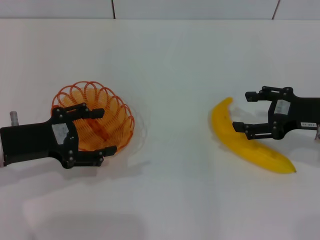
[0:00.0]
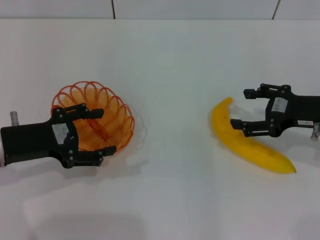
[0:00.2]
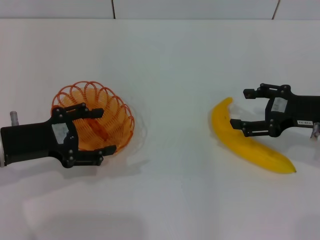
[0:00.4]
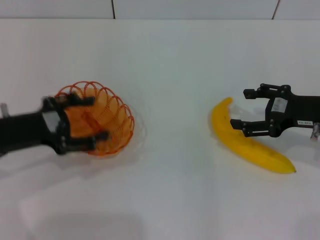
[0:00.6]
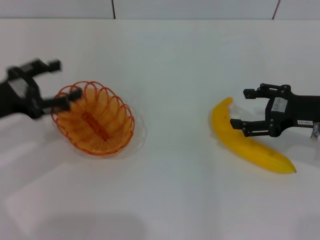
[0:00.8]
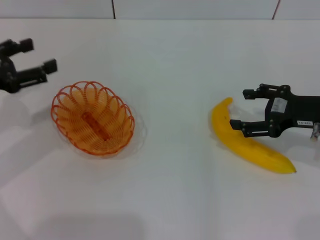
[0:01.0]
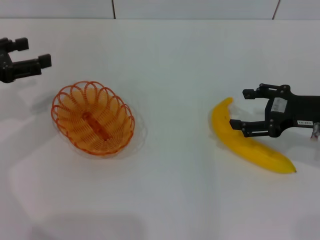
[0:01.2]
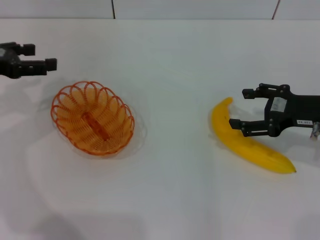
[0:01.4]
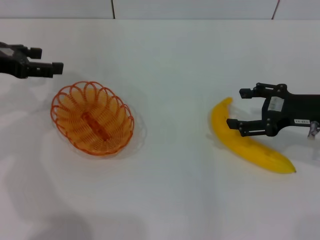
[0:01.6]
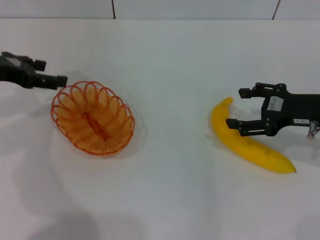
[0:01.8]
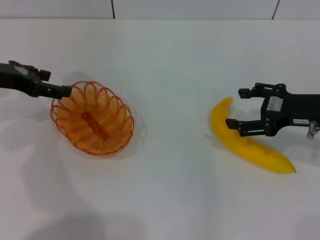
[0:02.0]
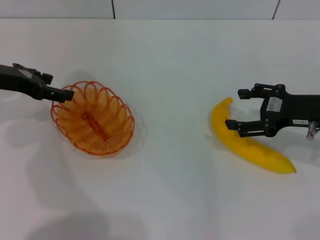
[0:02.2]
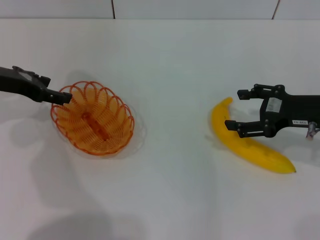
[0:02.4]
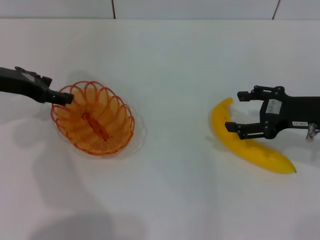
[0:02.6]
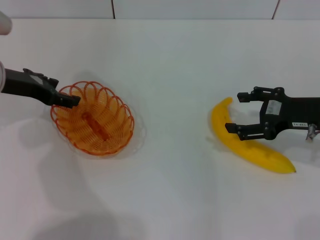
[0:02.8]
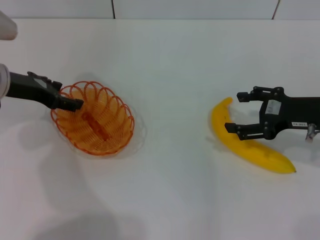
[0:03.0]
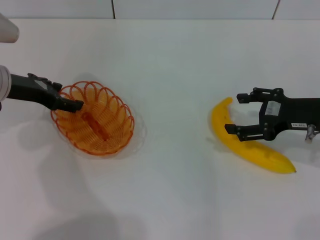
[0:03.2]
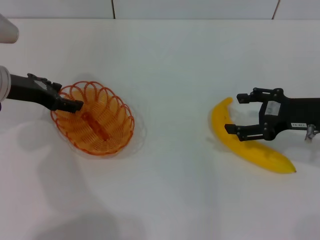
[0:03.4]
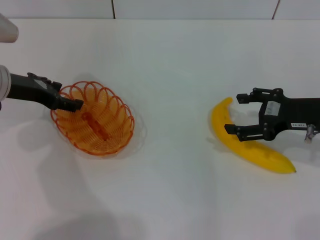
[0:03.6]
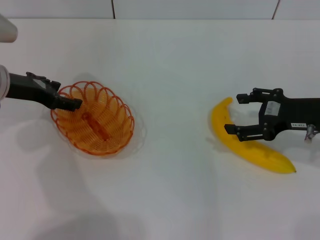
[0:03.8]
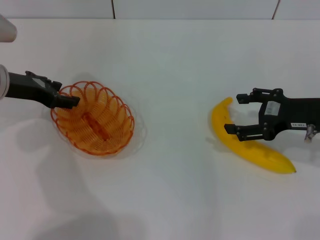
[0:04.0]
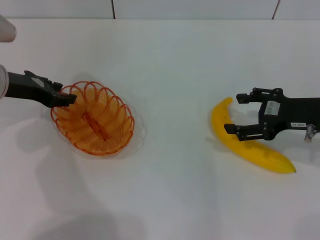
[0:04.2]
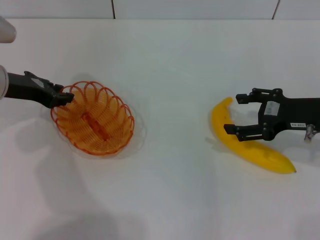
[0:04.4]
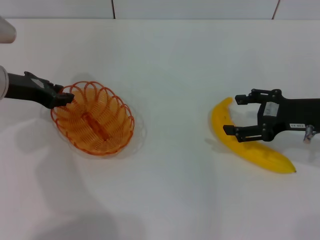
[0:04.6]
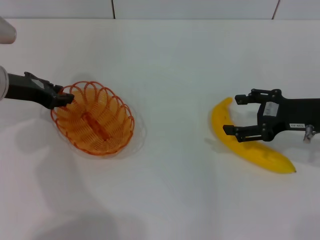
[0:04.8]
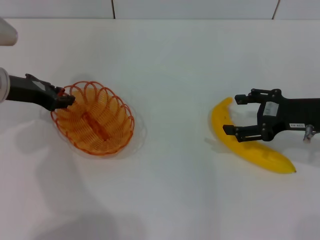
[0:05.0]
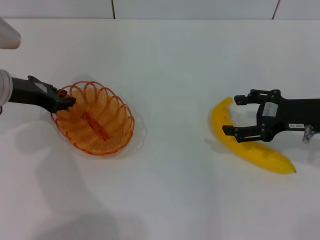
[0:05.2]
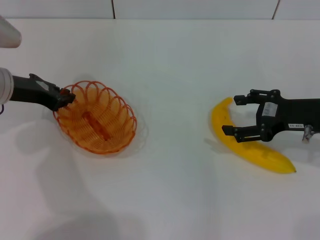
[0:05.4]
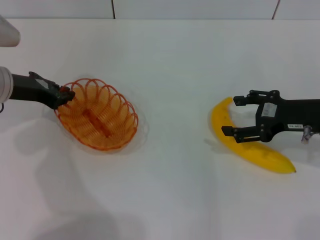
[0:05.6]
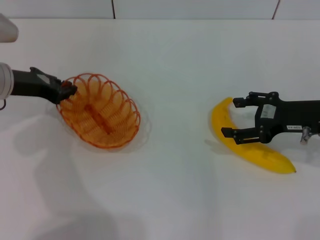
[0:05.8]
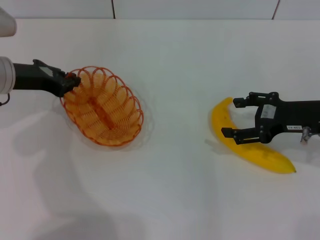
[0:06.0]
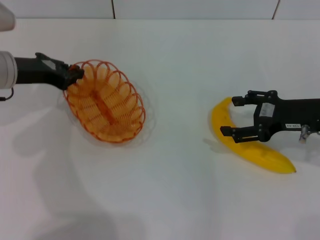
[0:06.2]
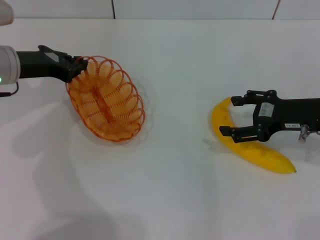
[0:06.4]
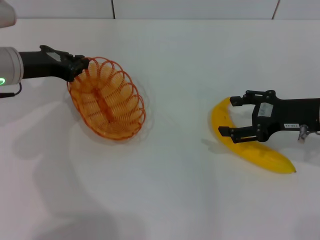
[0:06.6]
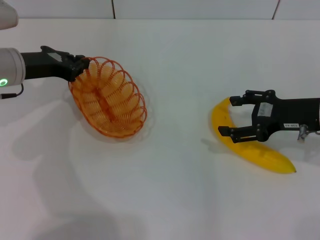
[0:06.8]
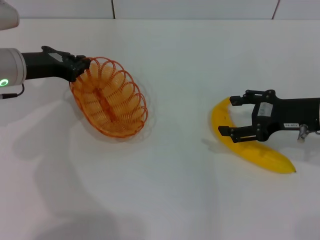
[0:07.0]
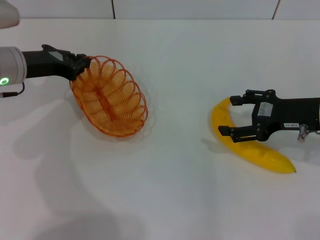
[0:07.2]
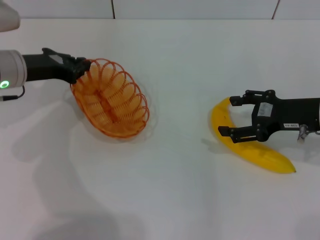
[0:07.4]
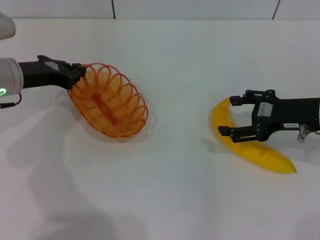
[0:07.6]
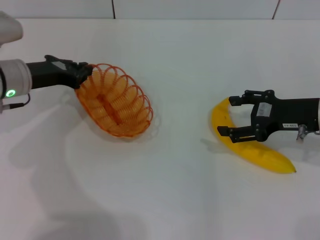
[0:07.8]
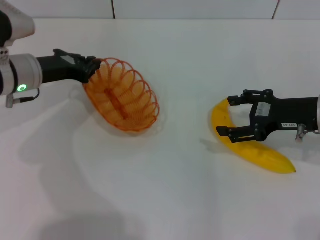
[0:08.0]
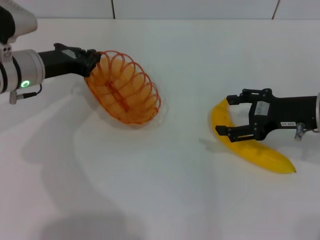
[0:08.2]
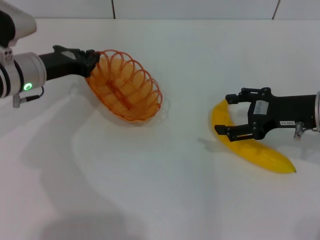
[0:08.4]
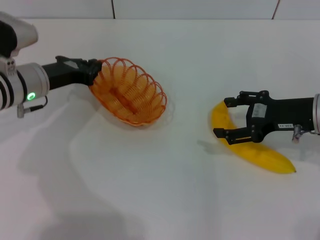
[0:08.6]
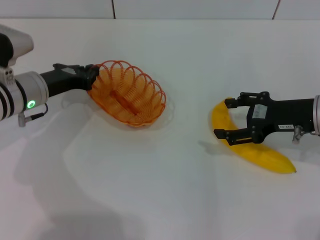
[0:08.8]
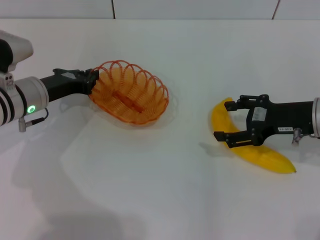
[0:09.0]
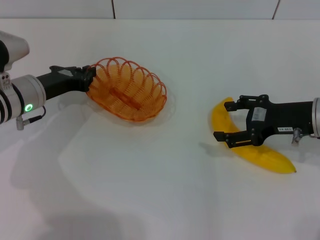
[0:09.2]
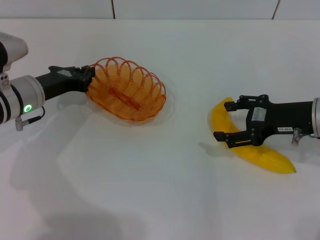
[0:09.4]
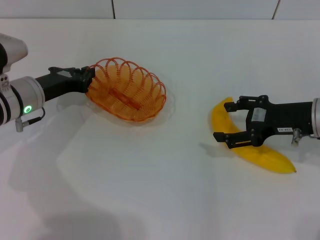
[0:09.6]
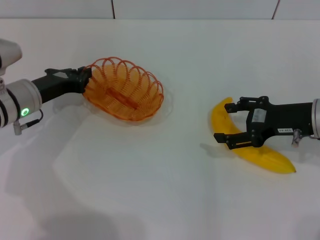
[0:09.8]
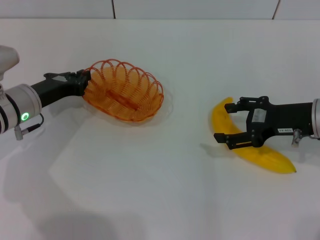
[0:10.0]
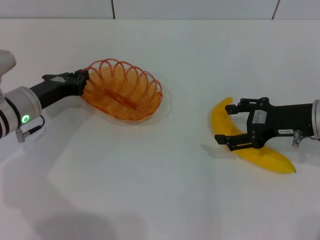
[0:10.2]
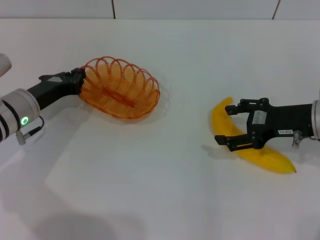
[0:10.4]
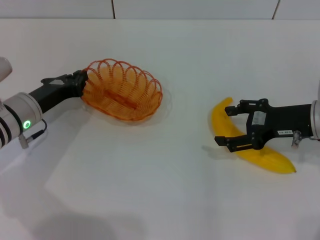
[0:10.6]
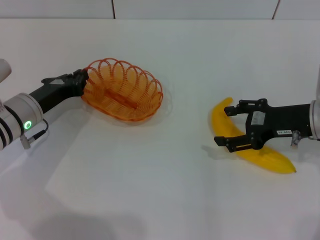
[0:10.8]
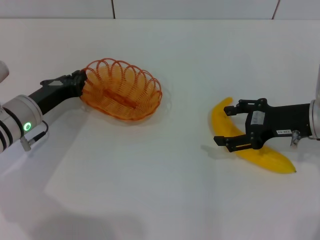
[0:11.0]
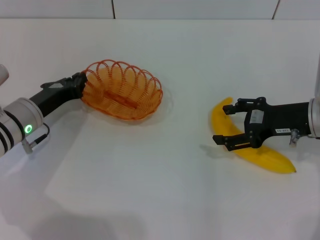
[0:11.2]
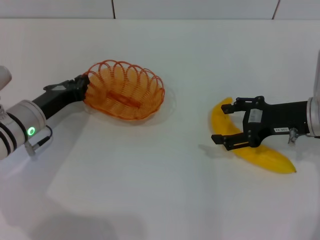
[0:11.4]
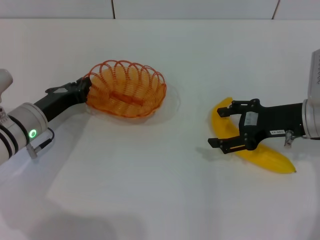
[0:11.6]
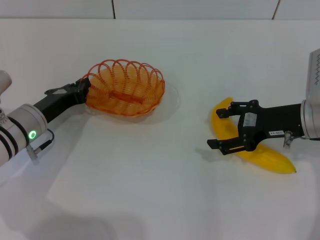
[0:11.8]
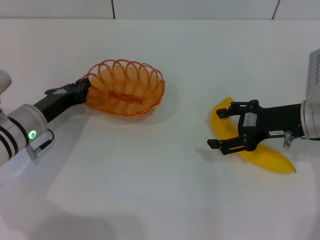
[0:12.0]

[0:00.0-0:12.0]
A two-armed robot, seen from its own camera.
Step, 0:00.0 to 0:05.0: Pick up the basket with the left gripper.
0:00.0 to 0:01.6: The left gripper travels forward, upward and to the left by approximately 15 cm.
0:01.6 to 0:03.0: The left gripper shifts by approximately 5 cm.
0:03.0 to 0:04.4: The left gripper closes up.
0:04.4 to 0:06.0: The left gripper closes up.
0:06.0 to 0:07.6: The grippers stay close to where they were, moving slightly.
0:07.6 to 0:09.0: The left gripper ends up some 5 cm from where it was.
0:09.0 to 0:10.4: The grippers make only small movements.
0:10.4 to 0:12.0: There are only small adjustments of the grippers.

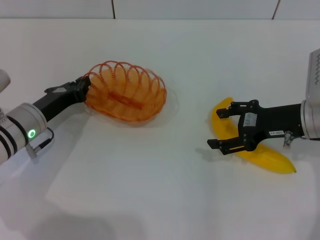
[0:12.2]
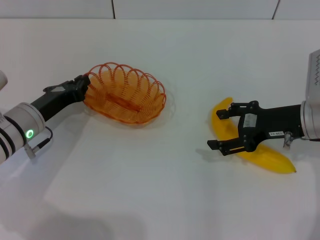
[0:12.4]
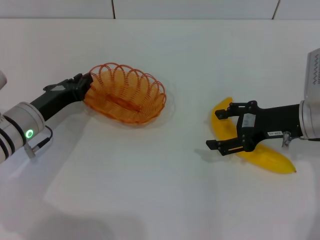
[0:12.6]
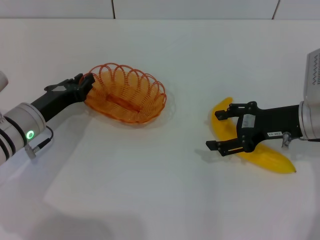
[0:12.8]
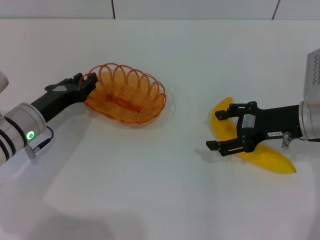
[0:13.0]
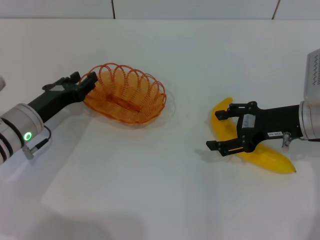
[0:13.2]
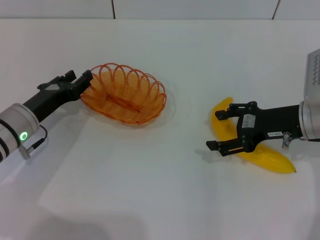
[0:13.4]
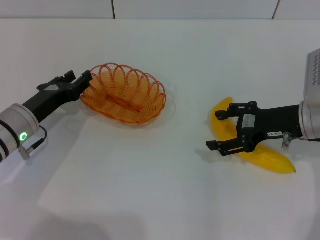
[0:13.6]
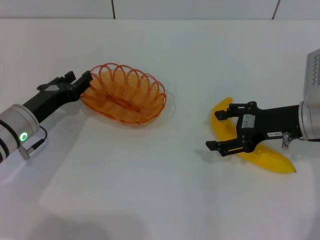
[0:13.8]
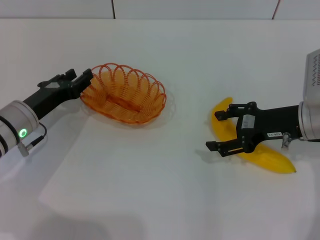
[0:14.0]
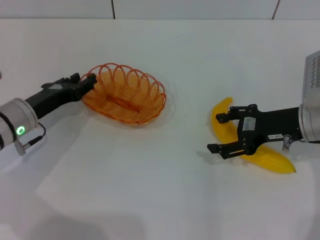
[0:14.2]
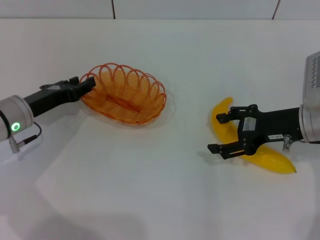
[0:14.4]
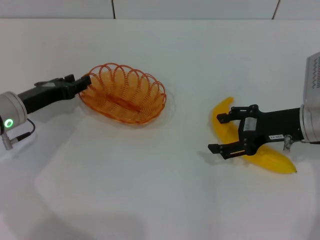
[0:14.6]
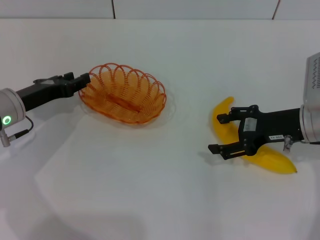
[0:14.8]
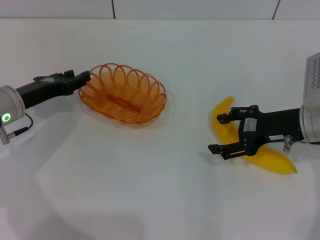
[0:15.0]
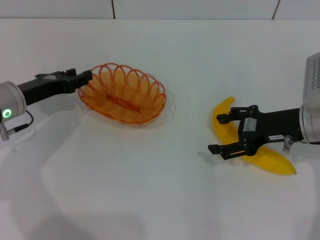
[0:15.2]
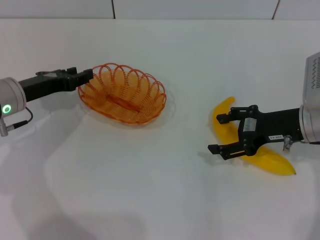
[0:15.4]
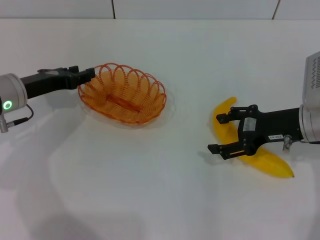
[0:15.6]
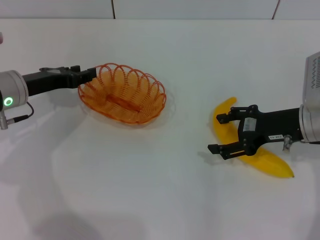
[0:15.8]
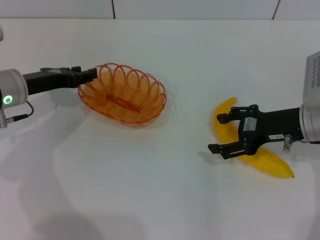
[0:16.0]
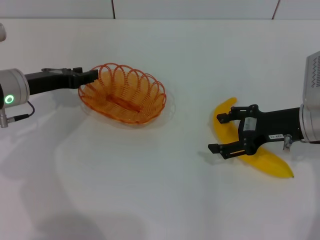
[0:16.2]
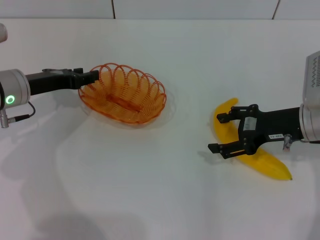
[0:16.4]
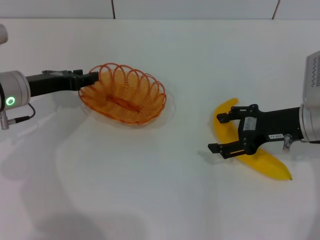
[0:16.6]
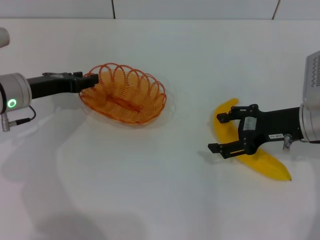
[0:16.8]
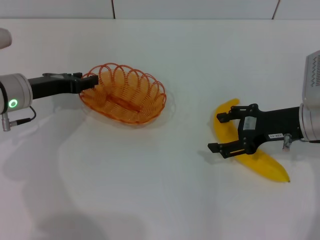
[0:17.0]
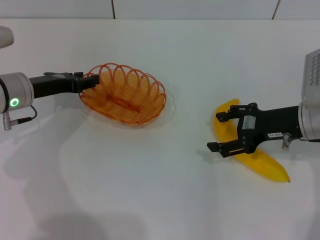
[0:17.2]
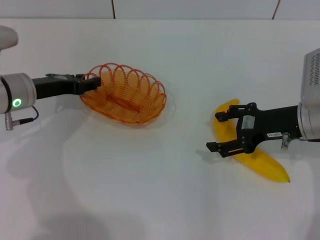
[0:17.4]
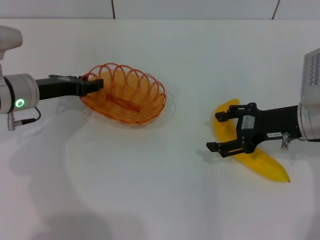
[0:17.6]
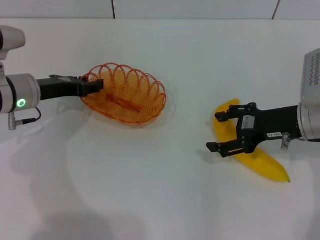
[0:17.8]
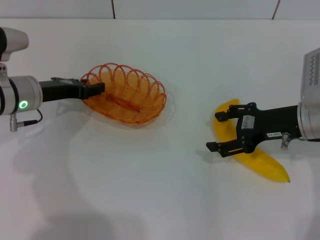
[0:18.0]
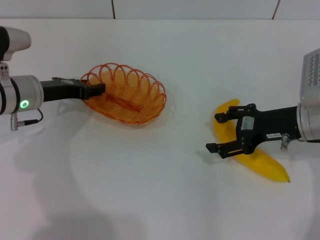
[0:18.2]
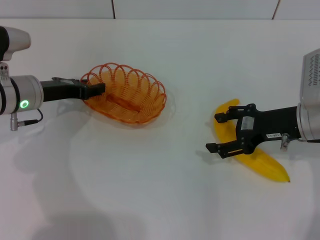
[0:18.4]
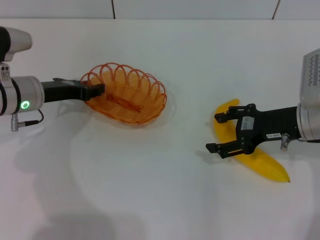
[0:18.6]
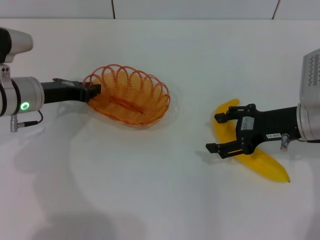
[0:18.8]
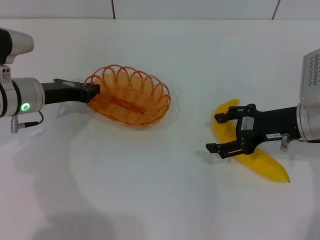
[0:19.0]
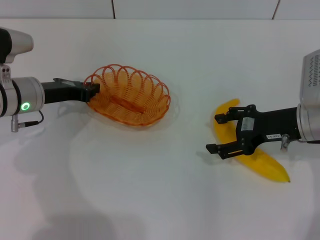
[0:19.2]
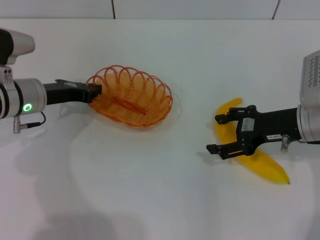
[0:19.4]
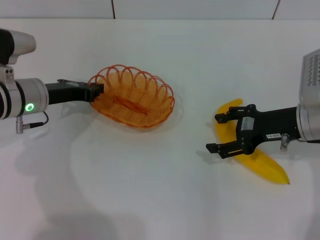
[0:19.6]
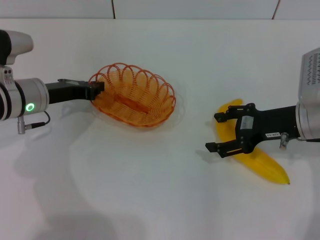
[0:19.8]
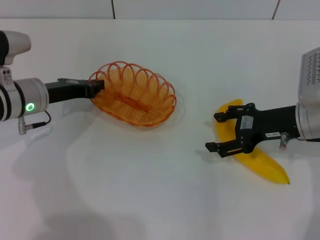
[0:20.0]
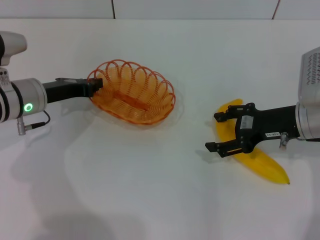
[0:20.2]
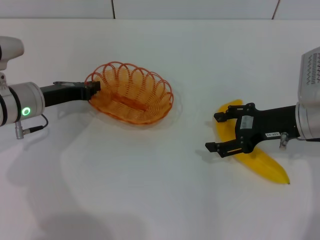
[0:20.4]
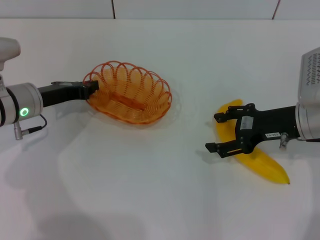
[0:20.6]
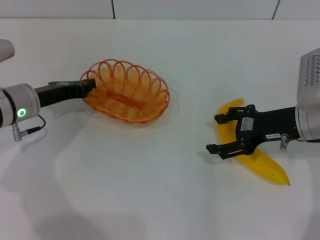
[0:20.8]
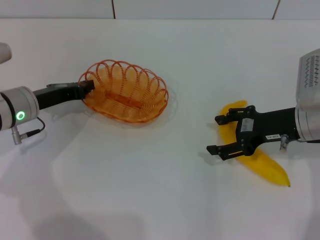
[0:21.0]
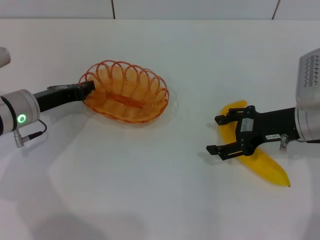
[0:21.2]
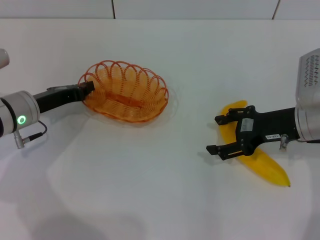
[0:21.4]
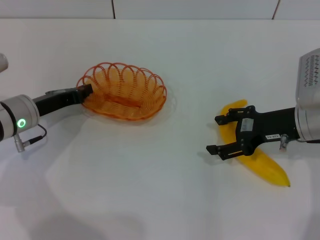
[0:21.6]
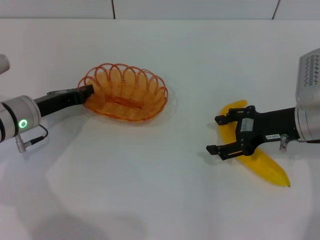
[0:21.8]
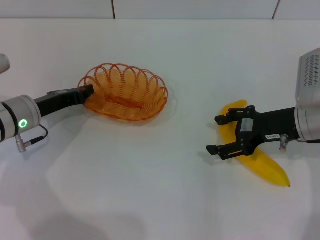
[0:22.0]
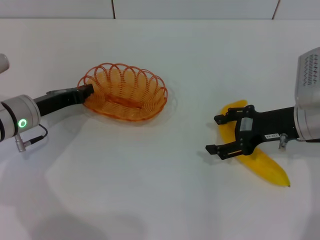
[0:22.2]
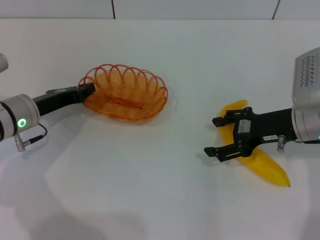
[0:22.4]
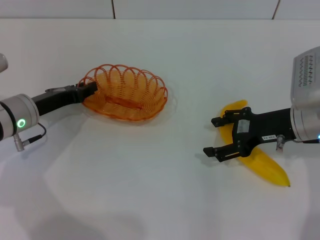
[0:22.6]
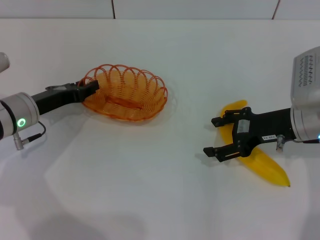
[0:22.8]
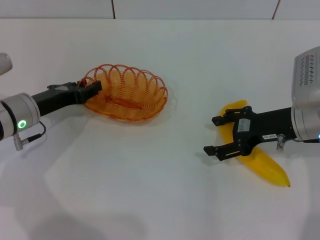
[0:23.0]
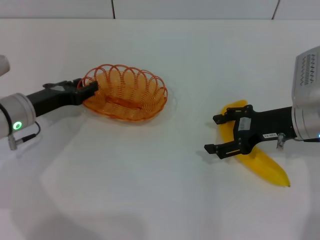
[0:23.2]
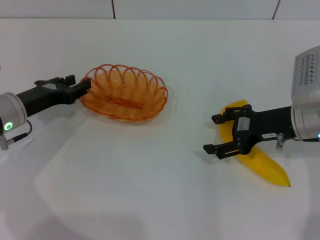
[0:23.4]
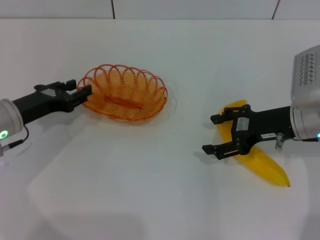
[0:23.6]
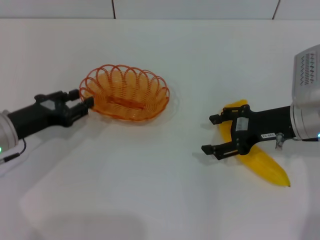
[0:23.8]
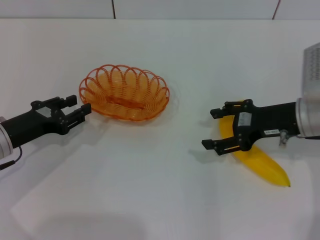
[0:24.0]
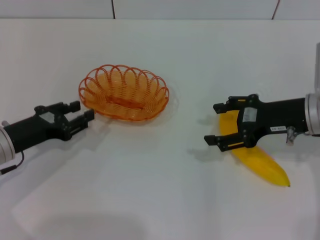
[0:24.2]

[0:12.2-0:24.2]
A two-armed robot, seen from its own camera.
Step, 0:12.2 to 0:23.2: Place the basket in the center of view with the left gripper.
0:12.2 to 0:13.8: The left gripper opens.
0:13.8 to 0:15.2: The left gripper changes place by some 5 cm.
0:15.2 to 0:18.2: There are only small adjustments of the grippers.
0:18.2 to 0:19.8: The left gripper closes its fingers.
0:19.8 to 0:21.2: The grippers make only small movements.
0:21.2 to 0:22.6: Both grippers stay put.
0:22.6 to 0:24.2: The left gripper is displaced backward by approximately 5 cm.
